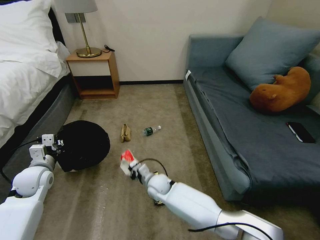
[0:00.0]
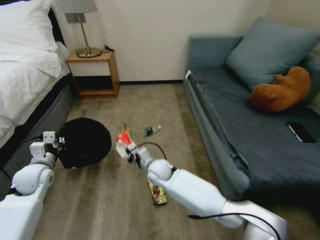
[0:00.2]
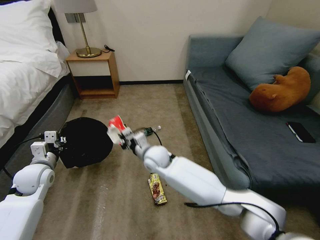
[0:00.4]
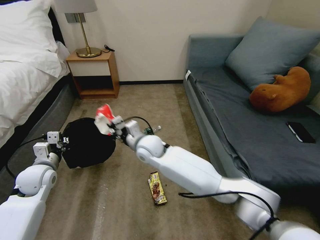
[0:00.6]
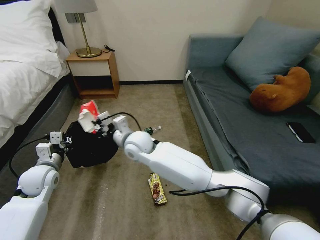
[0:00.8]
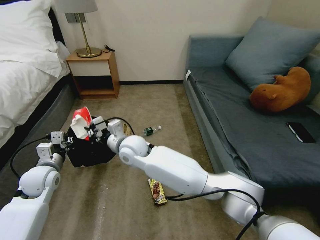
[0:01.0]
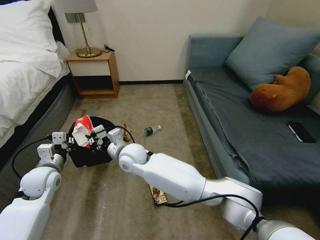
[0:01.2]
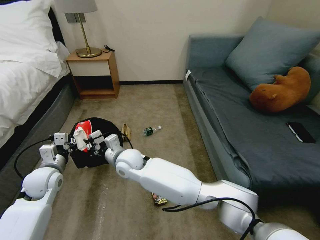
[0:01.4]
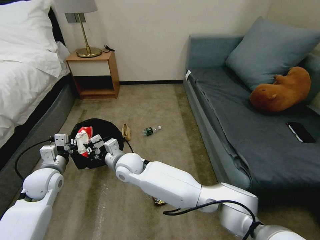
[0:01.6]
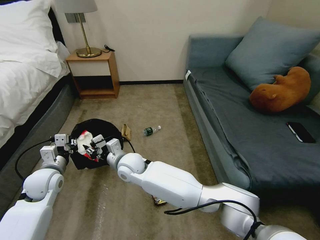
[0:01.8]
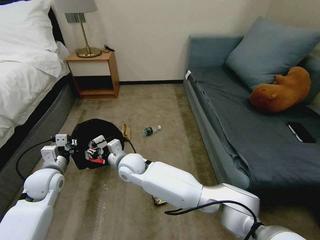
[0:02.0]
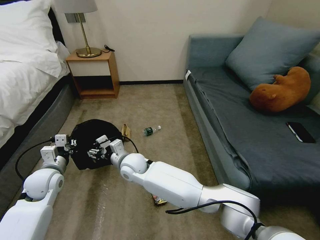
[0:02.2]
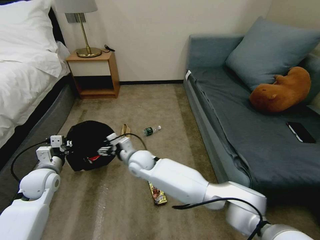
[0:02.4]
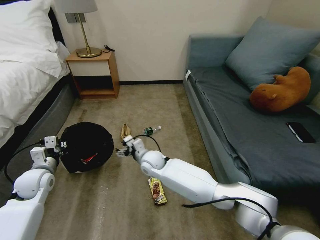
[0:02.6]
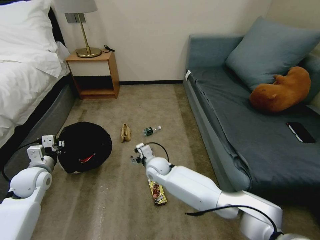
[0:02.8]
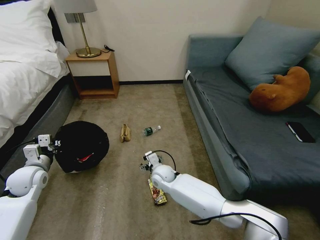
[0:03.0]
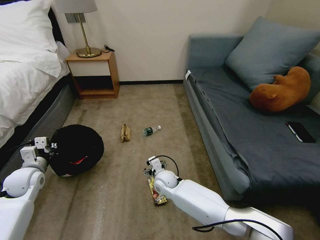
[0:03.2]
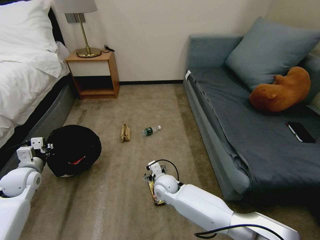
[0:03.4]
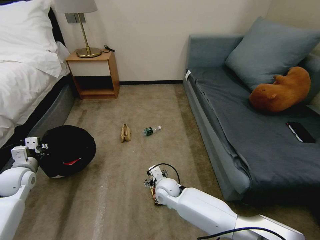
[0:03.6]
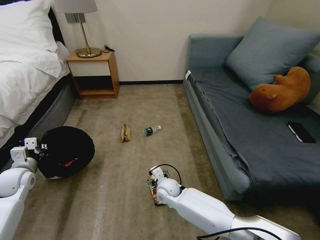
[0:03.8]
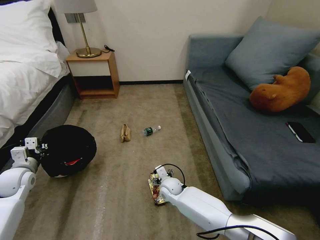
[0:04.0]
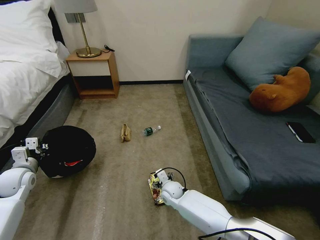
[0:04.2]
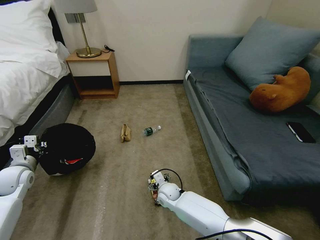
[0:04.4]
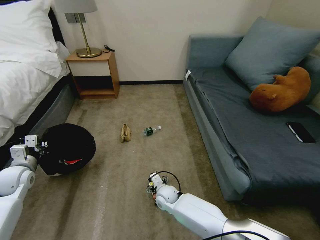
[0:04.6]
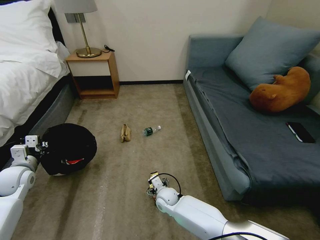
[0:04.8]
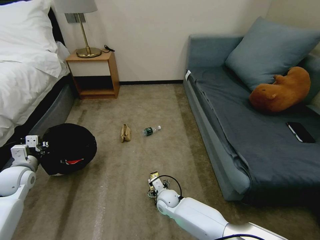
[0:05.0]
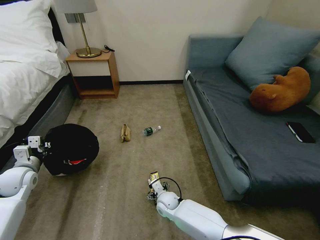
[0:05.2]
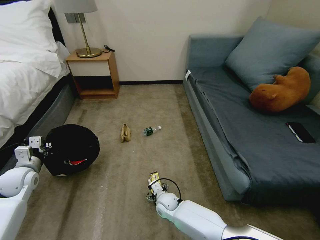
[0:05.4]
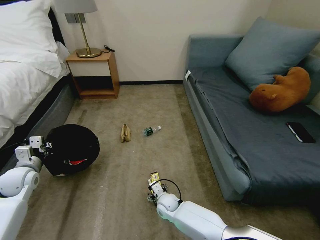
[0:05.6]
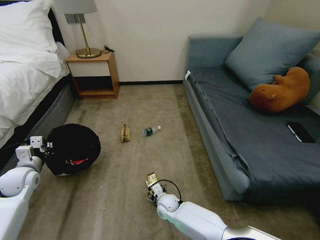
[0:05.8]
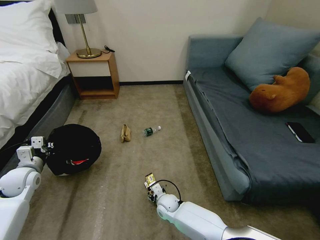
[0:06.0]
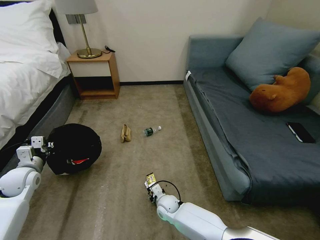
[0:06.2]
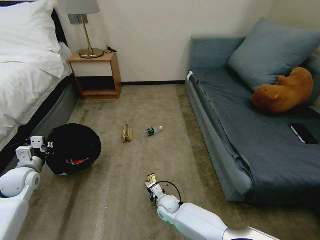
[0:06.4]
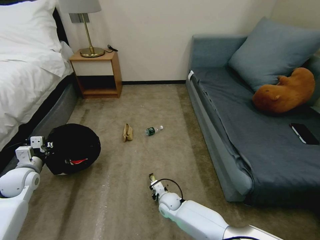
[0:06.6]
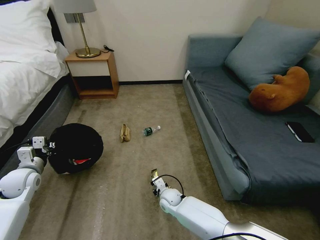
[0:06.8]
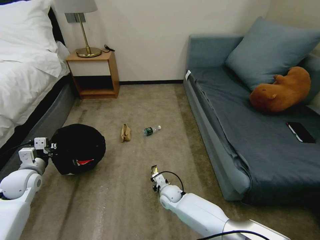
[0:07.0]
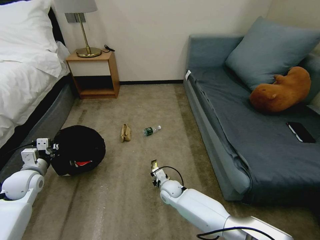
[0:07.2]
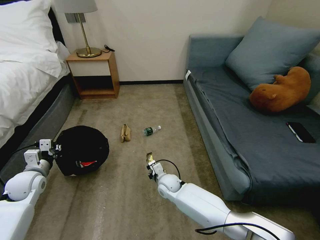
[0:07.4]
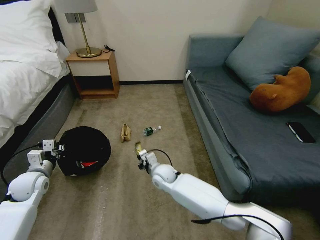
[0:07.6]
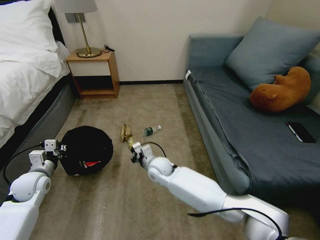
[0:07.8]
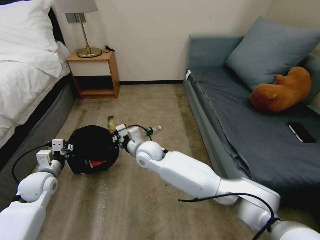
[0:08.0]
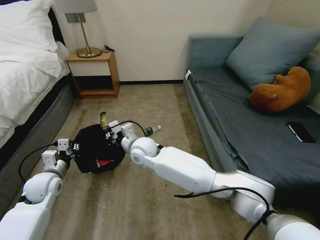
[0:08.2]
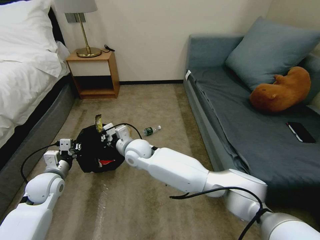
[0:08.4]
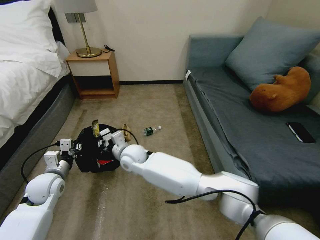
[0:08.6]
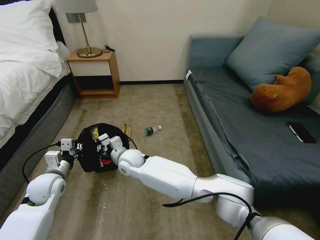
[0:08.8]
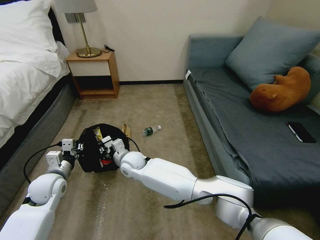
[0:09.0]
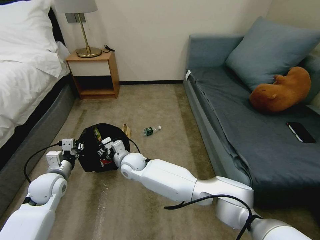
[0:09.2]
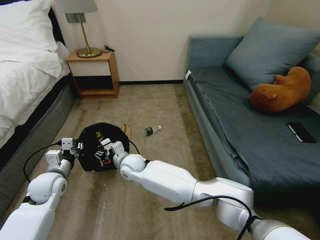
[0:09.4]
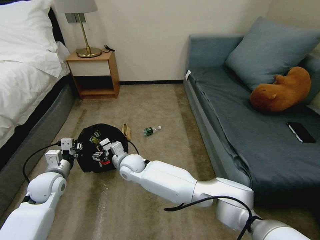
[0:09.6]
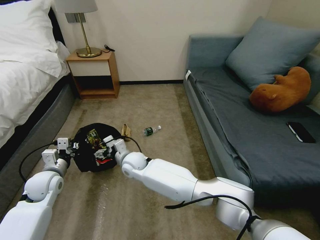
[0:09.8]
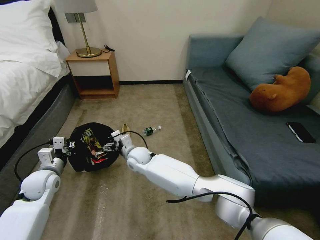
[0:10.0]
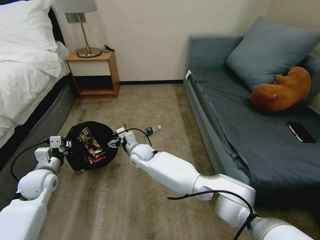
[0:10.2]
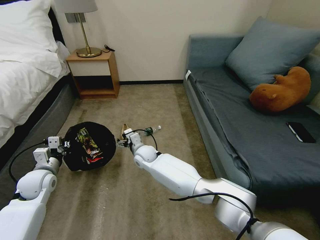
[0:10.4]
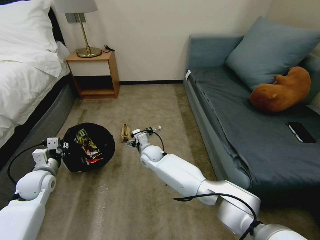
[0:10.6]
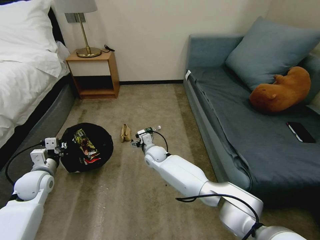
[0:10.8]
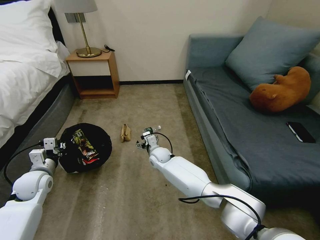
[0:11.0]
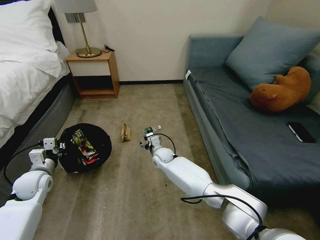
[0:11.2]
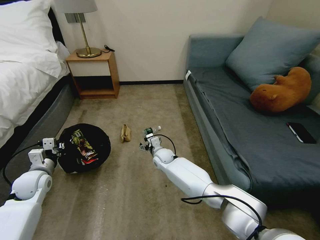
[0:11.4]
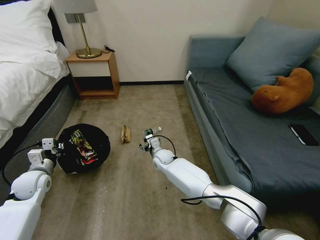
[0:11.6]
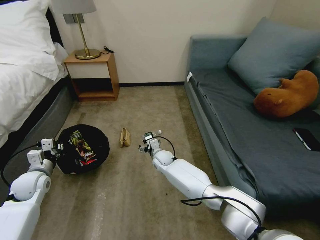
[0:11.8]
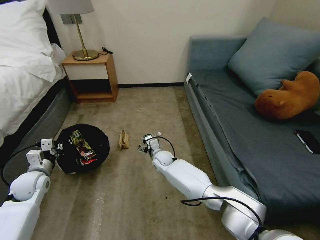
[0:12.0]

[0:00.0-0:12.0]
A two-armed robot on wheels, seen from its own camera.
Task of the whole recording: Pick up the trash bin, then pick up the garbage on the floor and place it into the trash bin.
0:00.0 to 0:01.6: The right gripper heads upward and to the left, covering about 20 cm.
0:01.6 to 0:03.0: The right gripper is displaced to the right and downward by roughly 20 cm, and opens up. The left gripper heads to the left, covering roughly 5 cm.
0:03.0 to 0:04.4: The right gripper travels downward by some 5 cm.
0:04.4 to 0:06.0: The right gripper moves roughly 5 cm.
0:06.0 to 0:07.6: The right gripper moves upward and forward, some 15 cm, and closes its fingers.
0:07.6 to 0:09.0: The right gripper heads to the left and upward, covering approximately 15 cm. Meanwhile the left gripper is displaced to the right by roughly 5 cm.
0:09.0 to 0:10.4: The right gripper travels forward by some 5 cm, and opens.
0:10.4 to 0:12.0: The right gripper is displaced to the right and downward by some 10 cm.

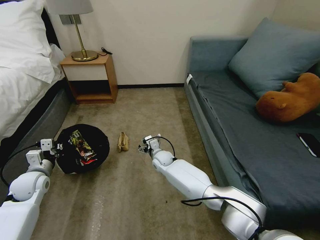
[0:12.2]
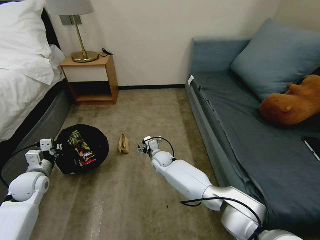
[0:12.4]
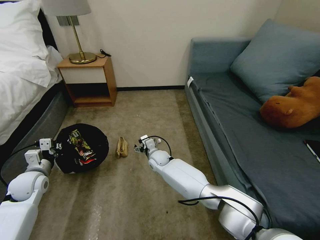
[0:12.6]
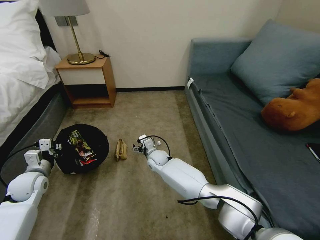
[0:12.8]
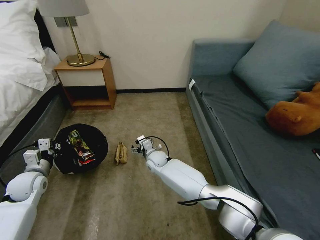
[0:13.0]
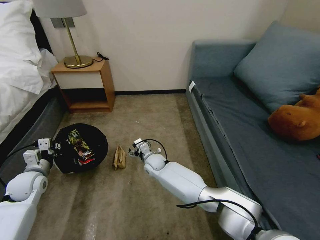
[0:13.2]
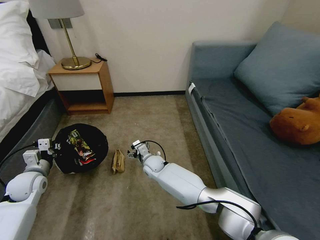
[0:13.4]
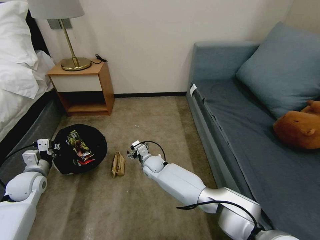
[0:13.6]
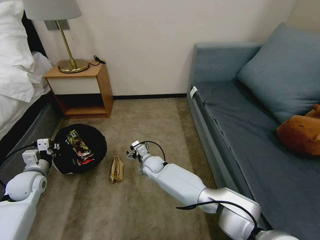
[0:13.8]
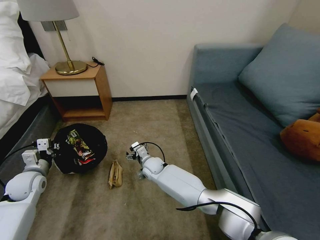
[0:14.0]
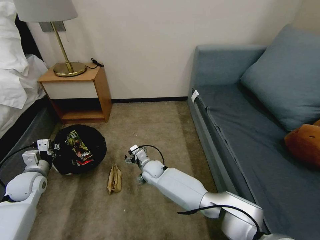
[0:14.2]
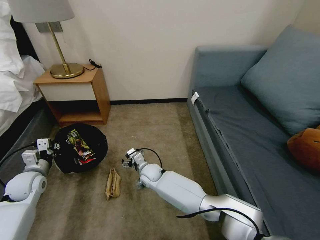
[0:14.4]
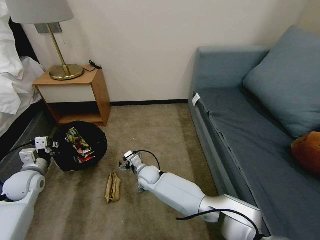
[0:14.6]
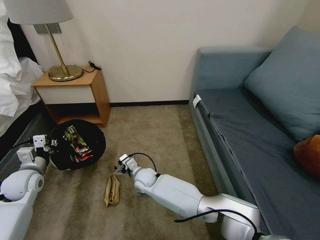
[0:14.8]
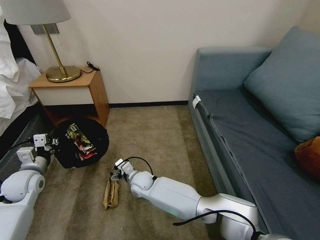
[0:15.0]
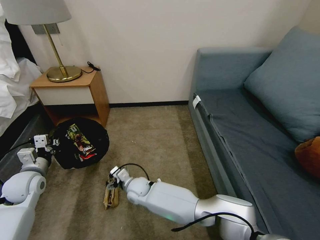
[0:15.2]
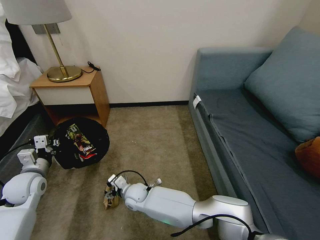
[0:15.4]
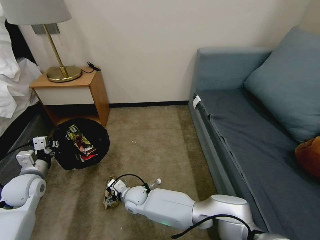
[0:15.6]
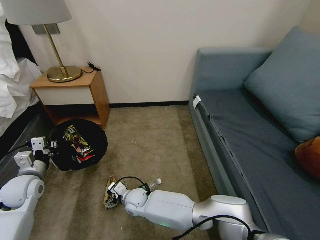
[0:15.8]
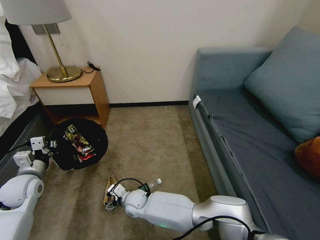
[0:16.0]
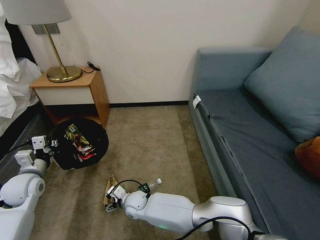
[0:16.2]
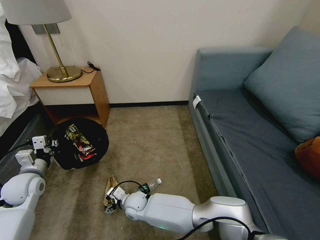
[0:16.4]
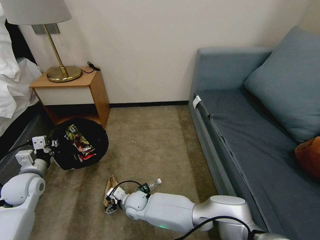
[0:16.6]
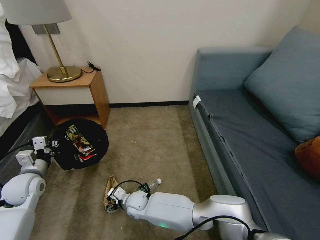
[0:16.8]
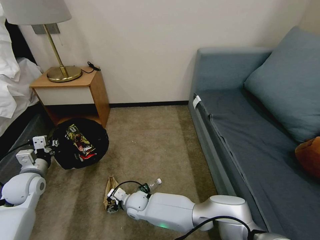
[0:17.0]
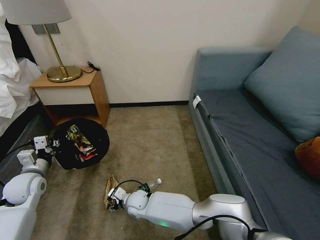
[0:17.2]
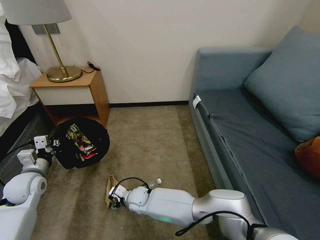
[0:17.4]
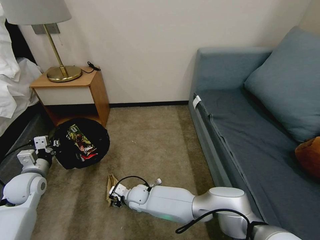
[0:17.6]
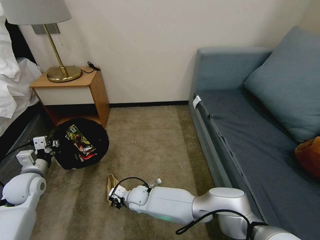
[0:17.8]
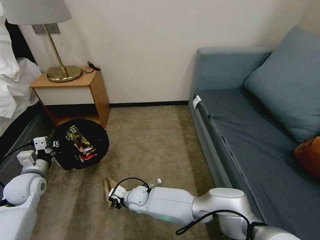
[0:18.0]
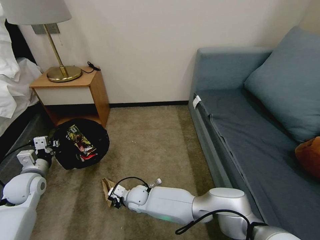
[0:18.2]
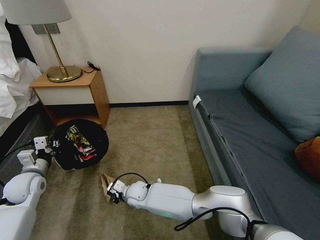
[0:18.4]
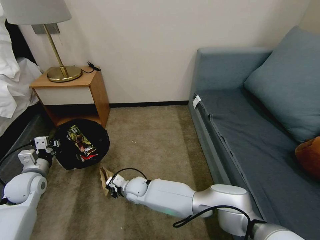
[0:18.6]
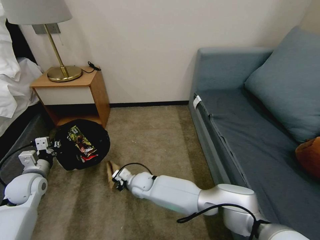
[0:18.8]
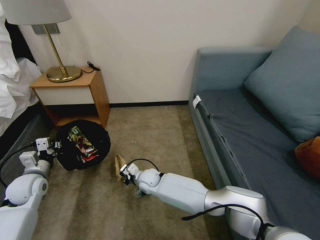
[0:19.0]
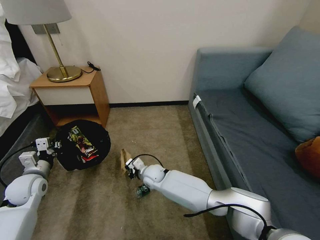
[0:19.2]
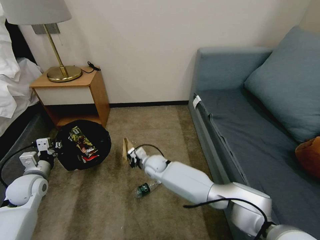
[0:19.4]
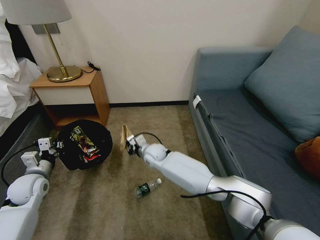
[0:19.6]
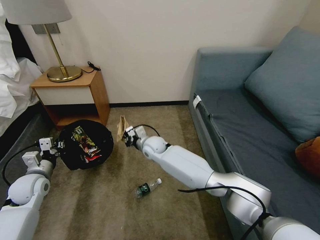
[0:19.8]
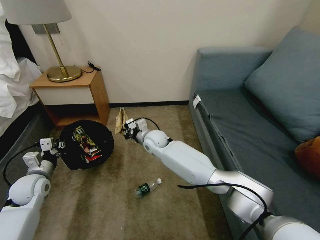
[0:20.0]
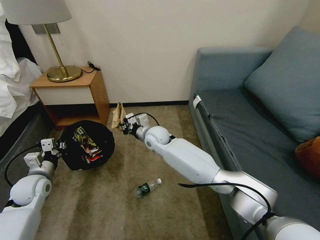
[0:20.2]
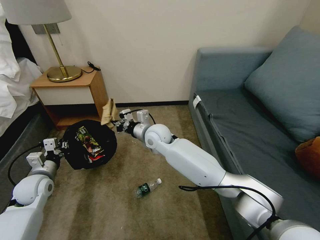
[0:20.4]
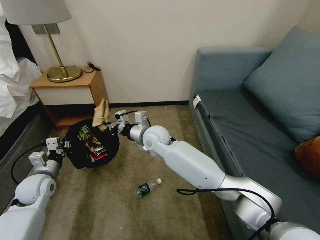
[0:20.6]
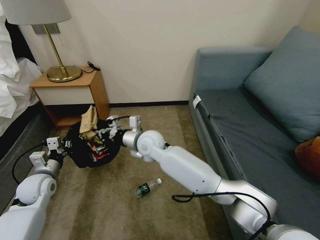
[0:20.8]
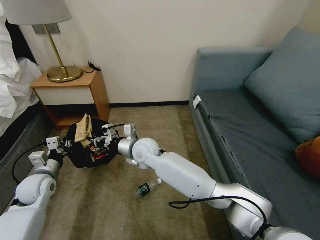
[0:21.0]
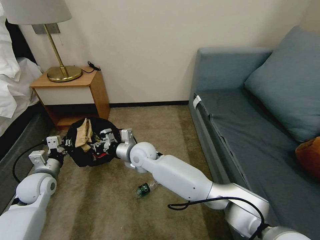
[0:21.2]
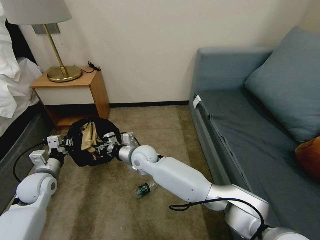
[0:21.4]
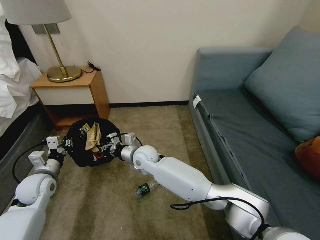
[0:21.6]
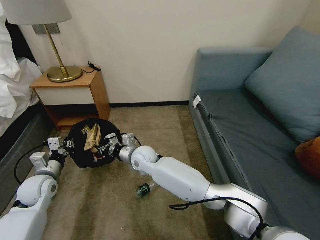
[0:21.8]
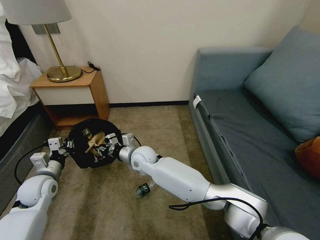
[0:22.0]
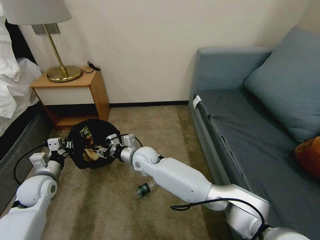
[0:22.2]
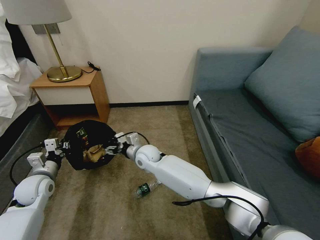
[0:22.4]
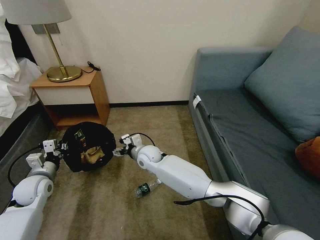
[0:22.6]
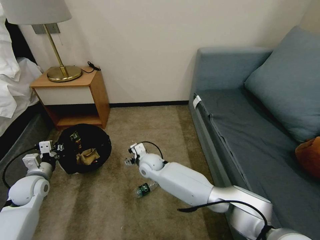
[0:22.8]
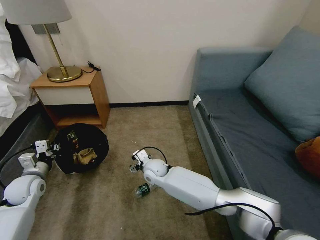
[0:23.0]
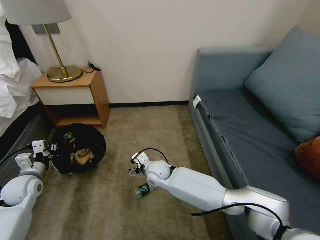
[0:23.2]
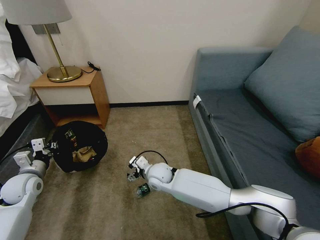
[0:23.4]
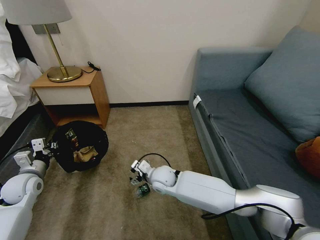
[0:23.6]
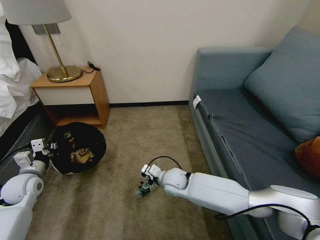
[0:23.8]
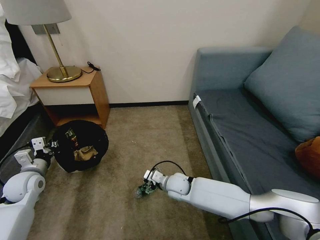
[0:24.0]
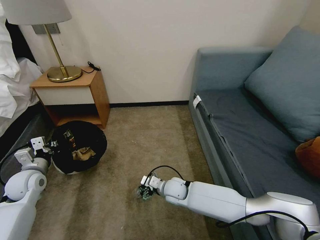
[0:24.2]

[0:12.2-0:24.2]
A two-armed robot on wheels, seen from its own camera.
Task of the whole recording: Pick up the trash bin, then pick up the garbage on the floor and place it into the trash bin.
0:12.2 to 0:13.8: The right gripper changes place by approximately 5 cm.
0:13.8 to 0:15.2: The right gripper goes approximately 10 cm backward and to the left.
0:15.2 to 0:16.6: The right gripper moves about 5 cm.
0:16.6 to 0:18.2: The right gripper closes.
0:18.2 to 0:19.8: The right gripper heads forward, upward and to the right, covering roughly 25 cm.
0:19.8 to 0:21.2: The right gripper is displaced backward by about 5 cm.
0:21.2 to 0:22.6: The right gripper is displaced downward by about 5 cm, and opens its fingers.
0:22.6 to 0:24.2: The right gripper moves to the right, backward and downward, about 15 cm.
